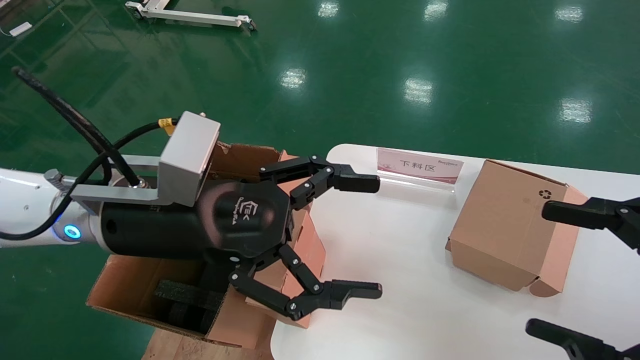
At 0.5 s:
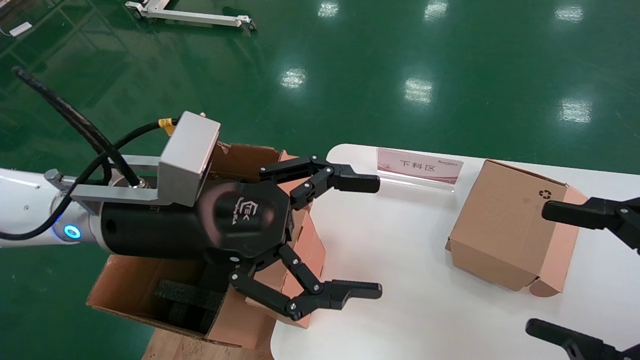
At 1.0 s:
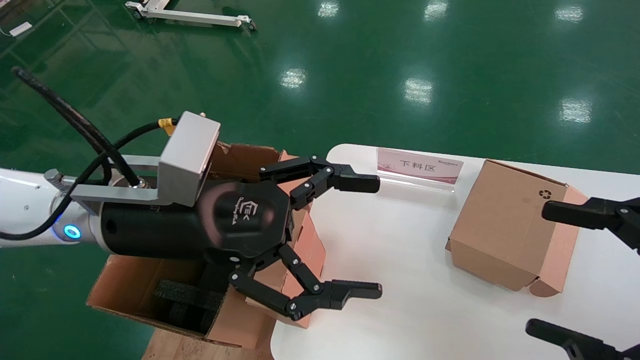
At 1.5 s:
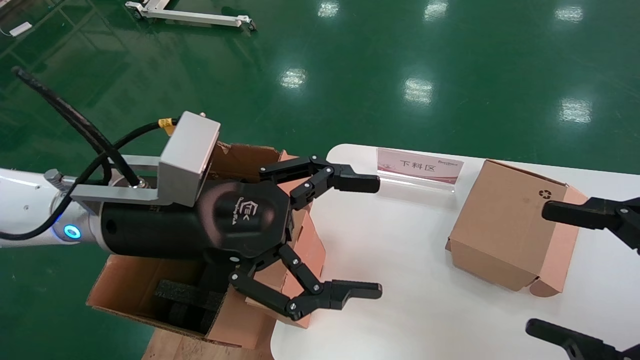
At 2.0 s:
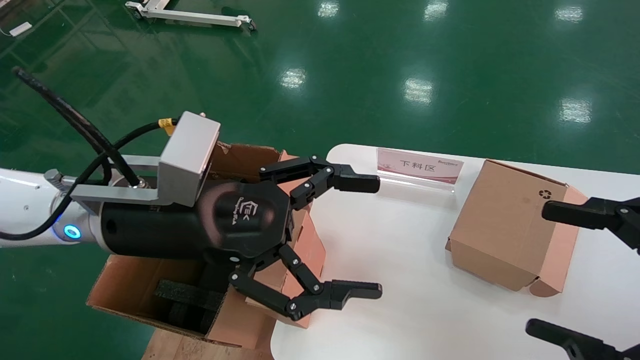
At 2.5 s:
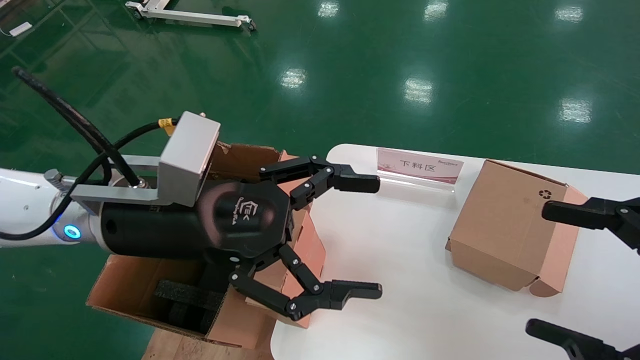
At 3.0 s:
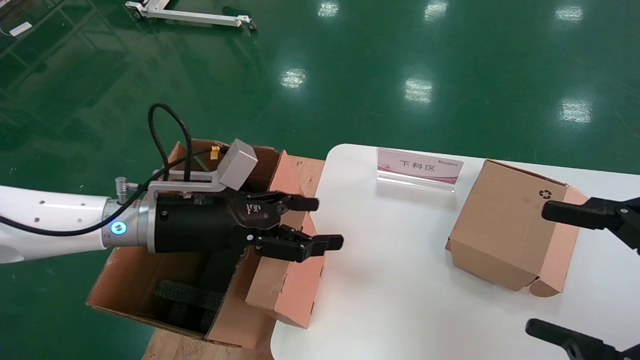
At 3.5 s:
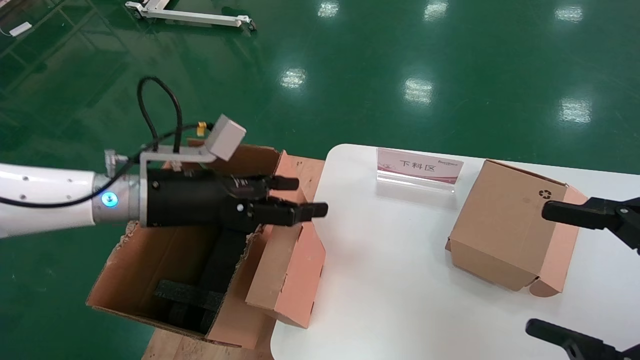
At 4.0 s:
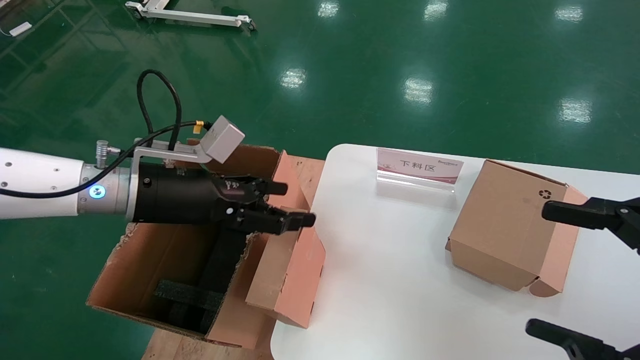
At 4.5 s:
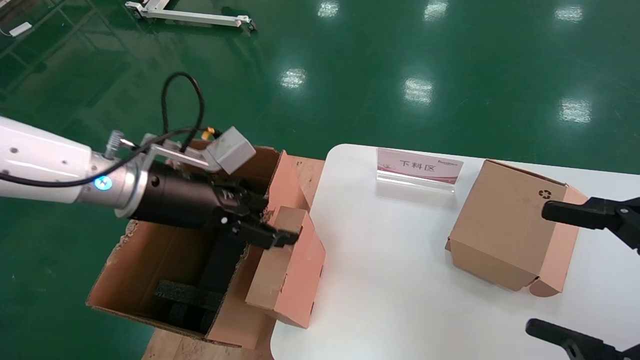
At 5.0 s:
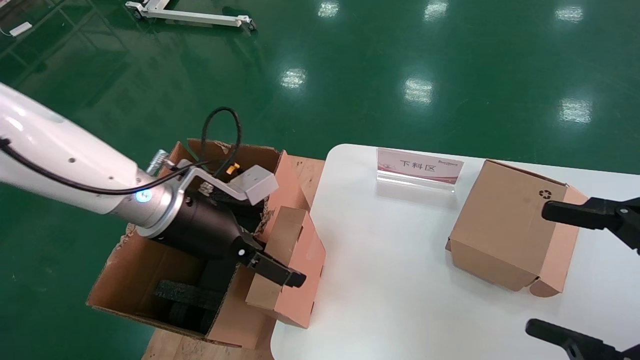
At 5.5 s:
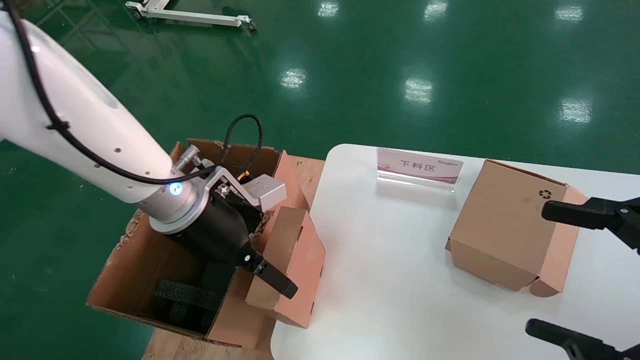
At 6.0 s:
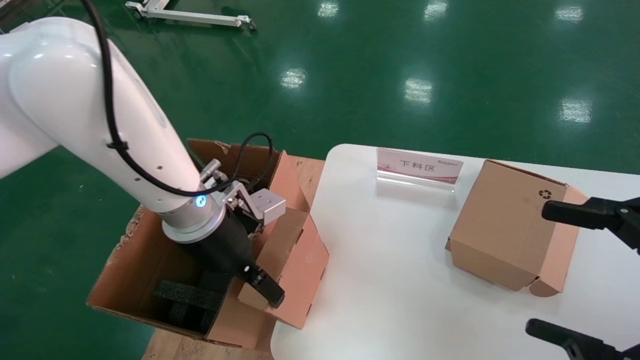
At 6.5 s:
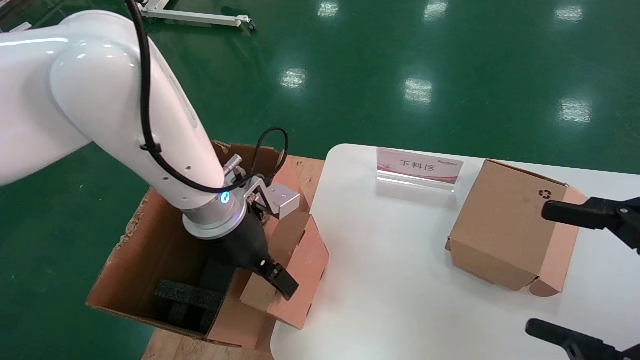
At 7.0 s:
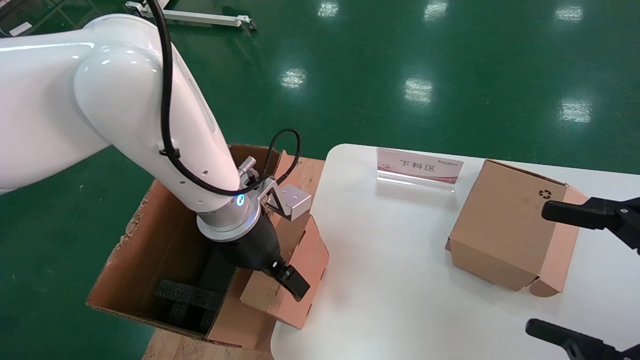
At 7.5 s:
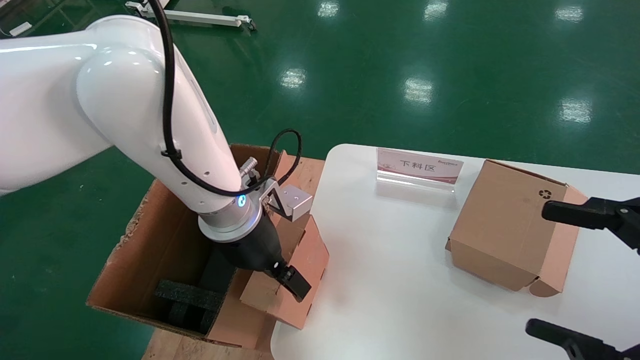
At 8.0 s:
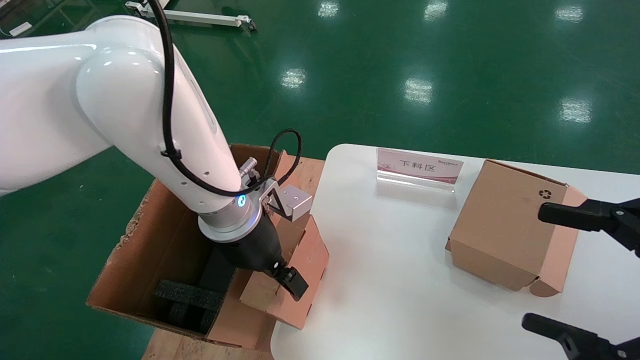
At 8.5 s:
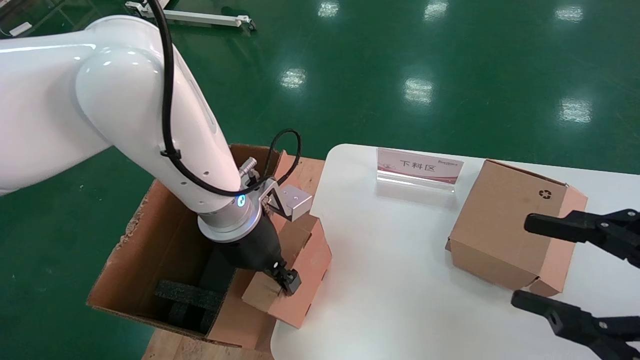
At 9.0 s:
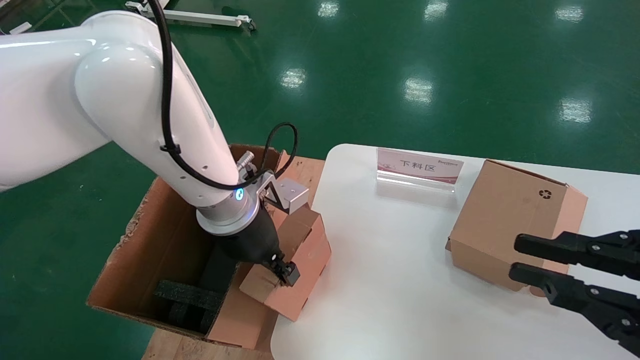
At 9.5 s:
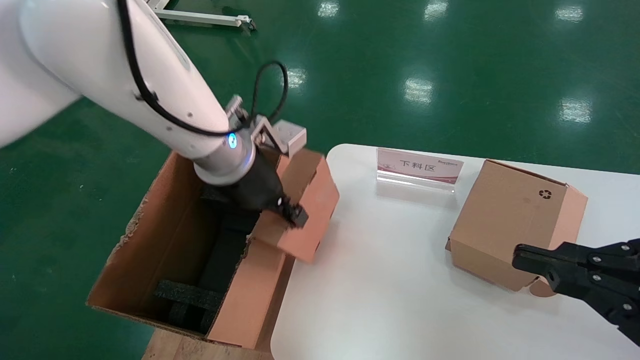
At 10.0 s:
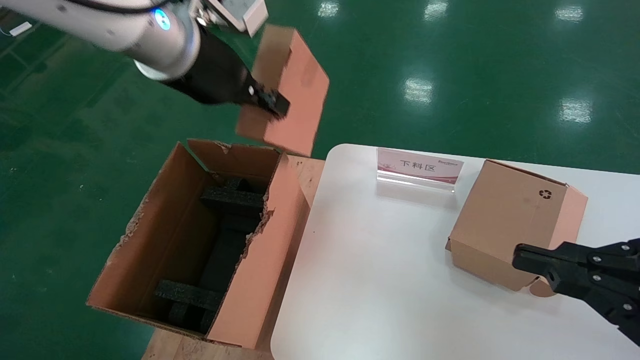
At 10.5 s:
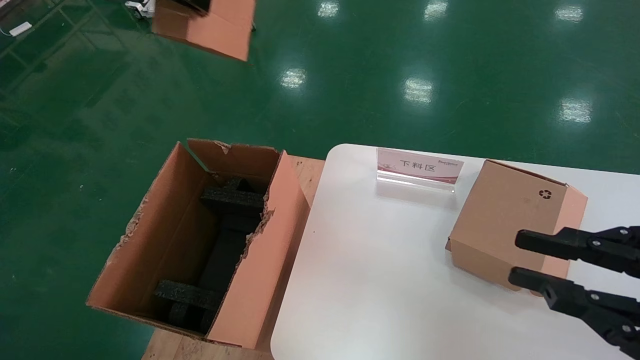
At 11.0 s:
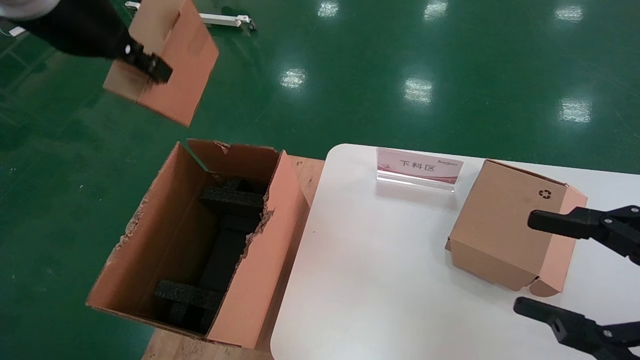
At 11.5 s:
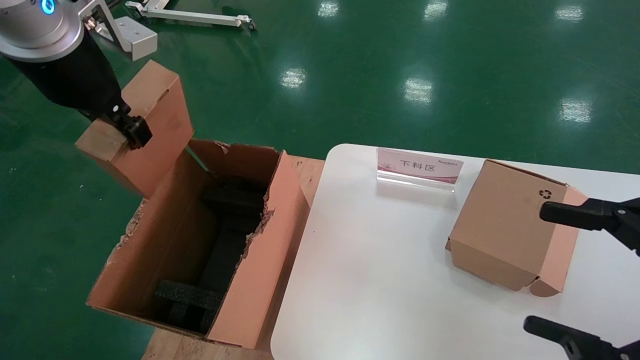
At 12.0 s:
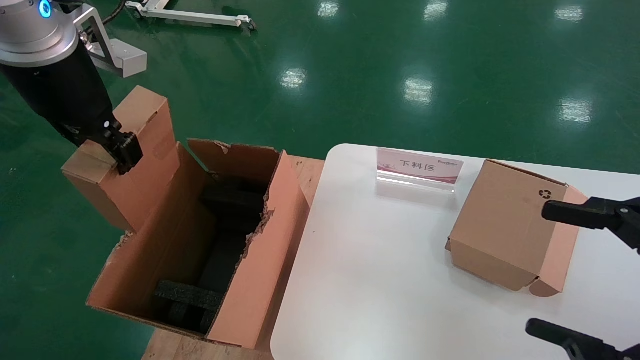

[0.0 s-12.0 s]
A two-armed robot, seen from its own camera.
Task of the whole recording: put the box on the table into the big box.
Step, 0.0 to 8.5 s: Grasp the paper box.
0.0 to 2.0 s: The two grippers keep their place.
2.0 to 4.0 s: The left gripper shifts about 10 cm to the left and forward.
4.0 to 6.0 s: The left gripper heads to the right, covering some 10 cm.
6.0 to 8.0 s: The grippers move only a little.
8.0 to 10.0 s: The right gripper closes up; the left gripper shifts about 20 cm upward, and closes its fingers.
10.0 to 12.0 s: The right gripper opens. The left gripper moves to the left, approximately 10 cm.

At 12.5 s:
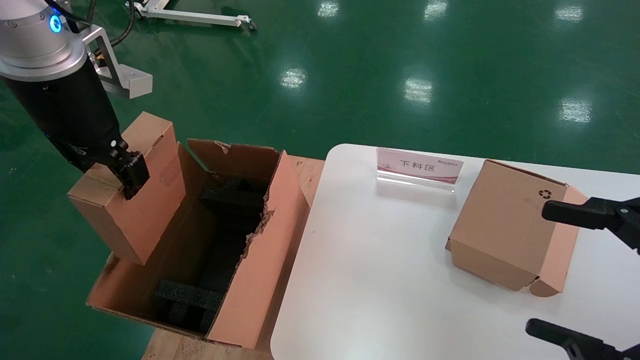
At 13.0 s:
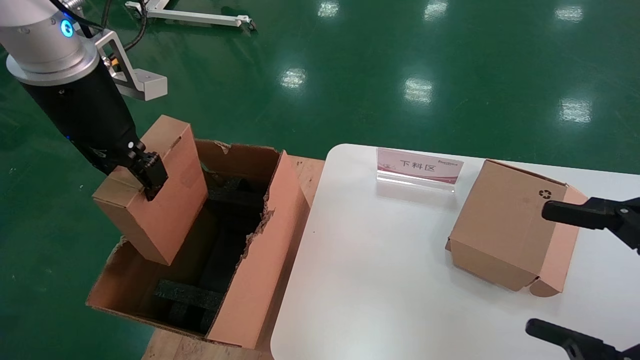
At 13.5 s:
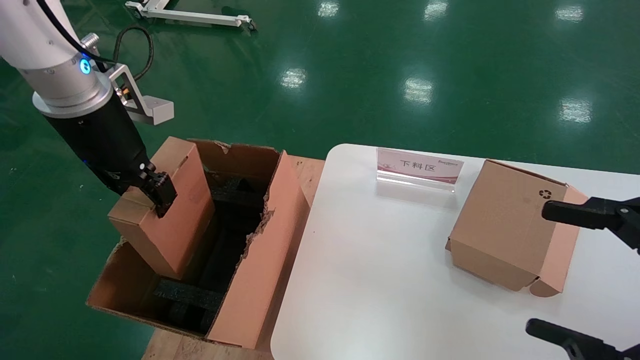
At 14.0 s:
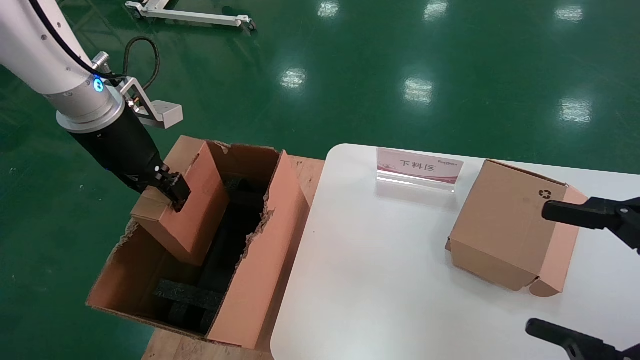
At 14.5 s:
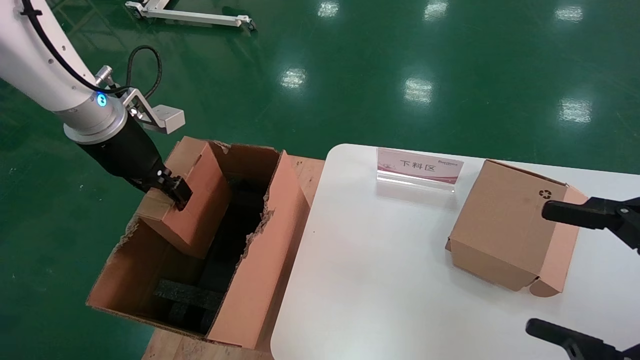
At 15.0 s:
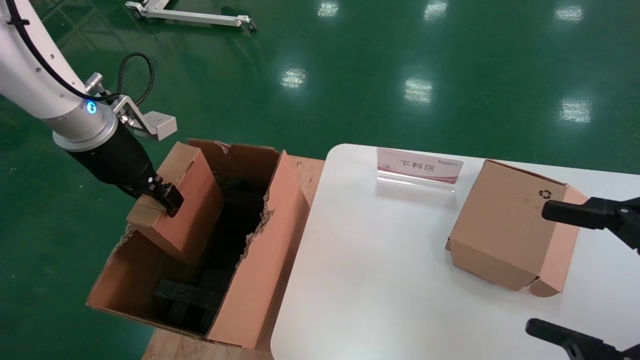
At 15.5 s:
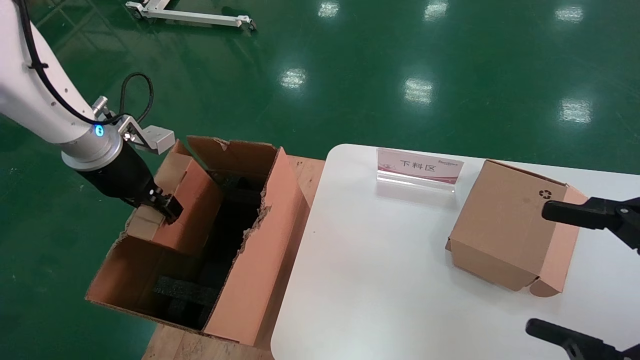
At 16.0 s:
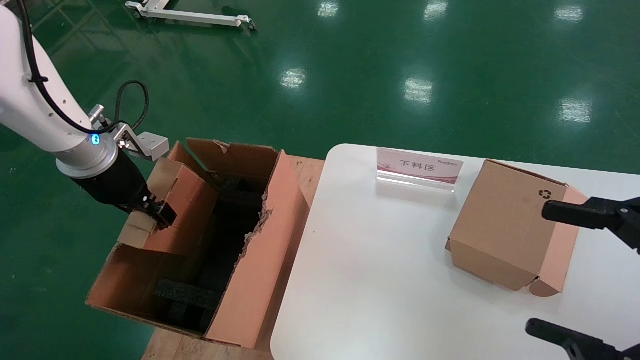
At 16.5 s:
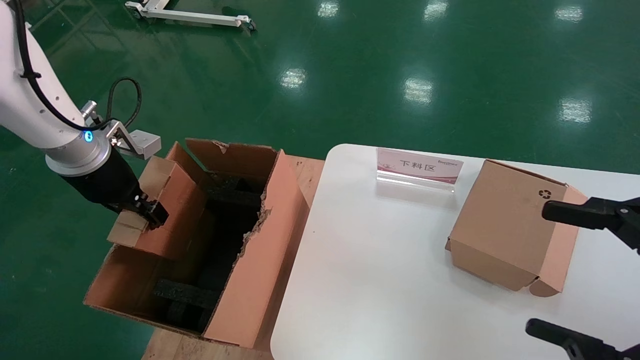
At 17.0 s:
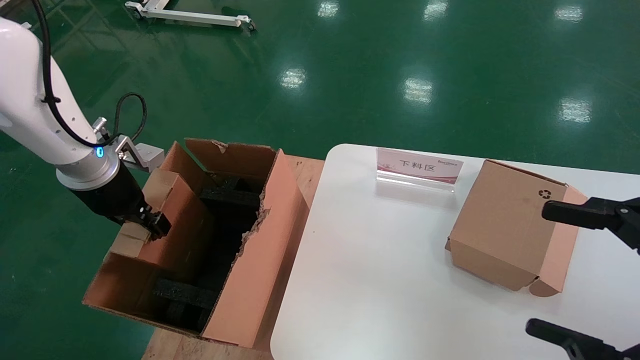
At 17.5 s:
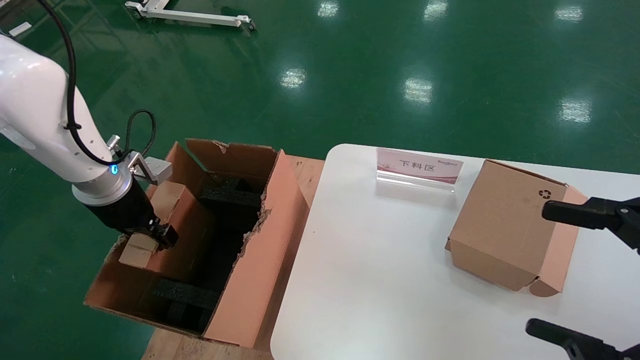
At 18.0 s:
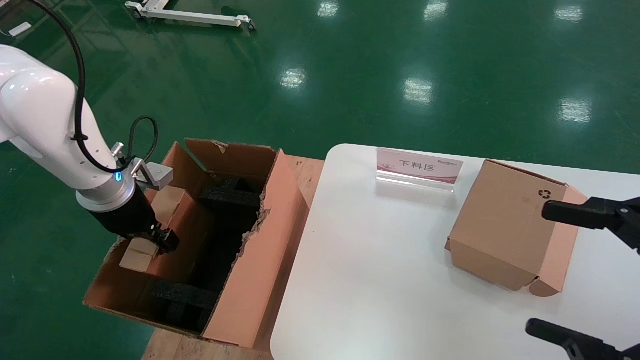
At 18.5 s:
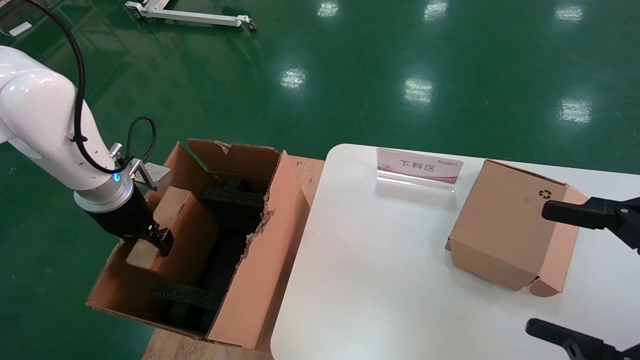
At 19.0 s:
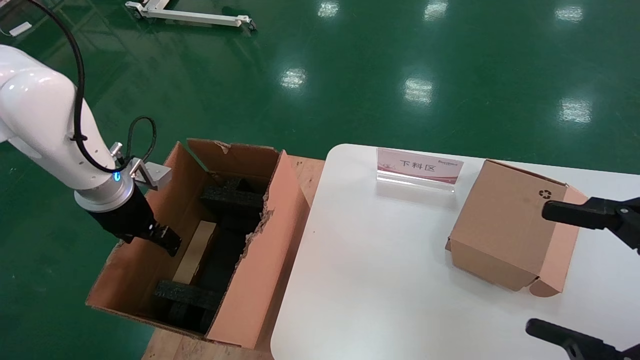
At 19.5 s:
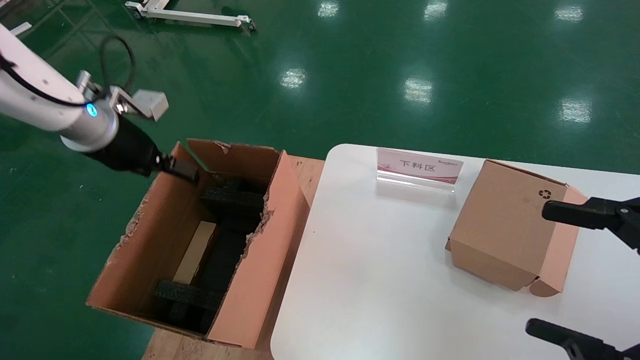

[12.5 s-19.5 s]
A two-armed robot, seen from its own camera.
Task of the whole recording: put the box on the table into the big box.
Step, 12.5 to 18.5 s: Place the paper box in the another big box.
12.5 to 14.5 s: The left gripper goes about 10 cm downward and forward.
14.5 to 16.0 s: The left gripper changes place by some 5 cm.
16.0 to 17.5 s: The grippers move only a little.
17.5 to 19.5 s: The left gripper heads upward, covering roughly 10 cm, and opens its fingers.
